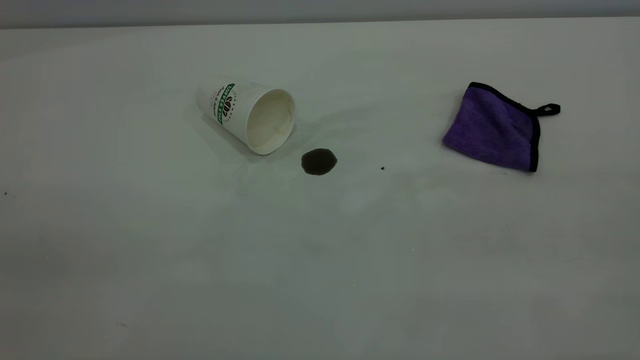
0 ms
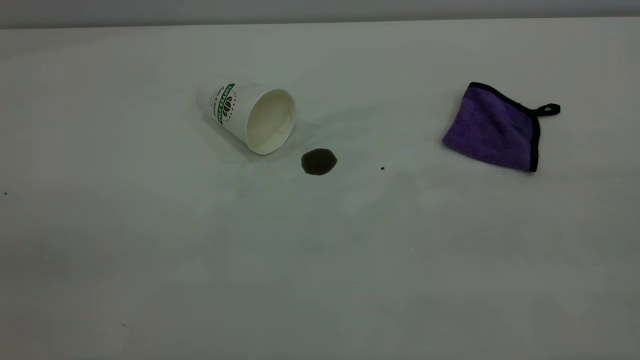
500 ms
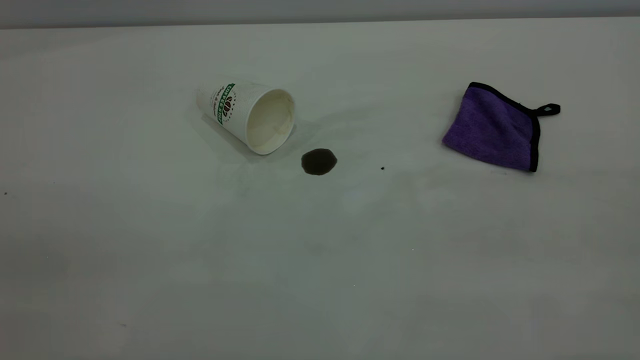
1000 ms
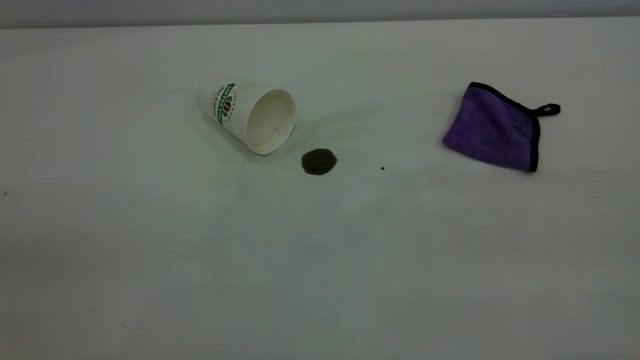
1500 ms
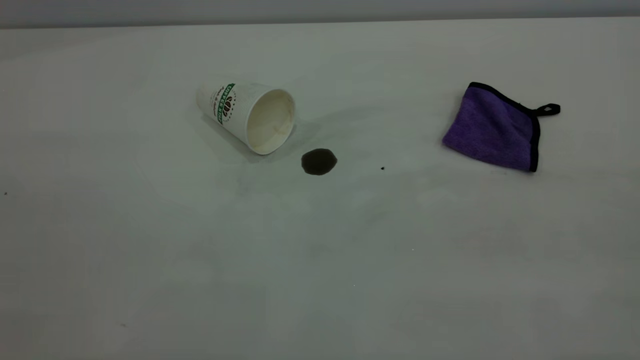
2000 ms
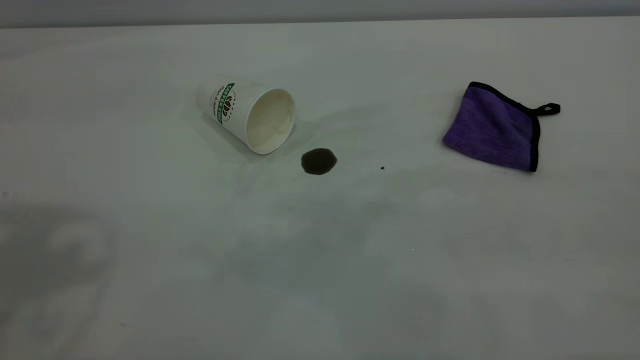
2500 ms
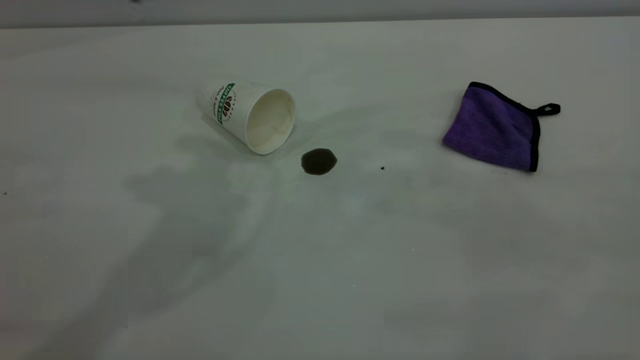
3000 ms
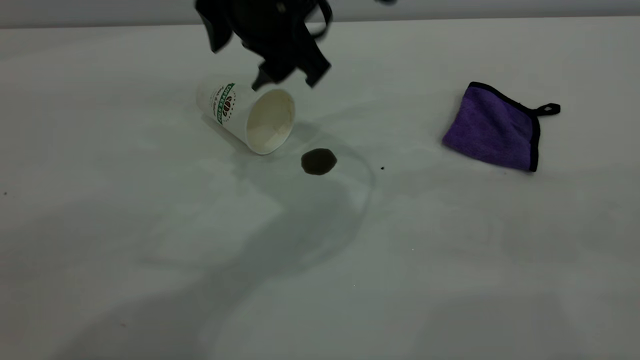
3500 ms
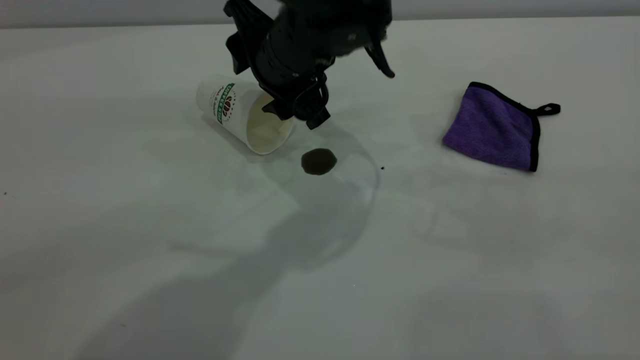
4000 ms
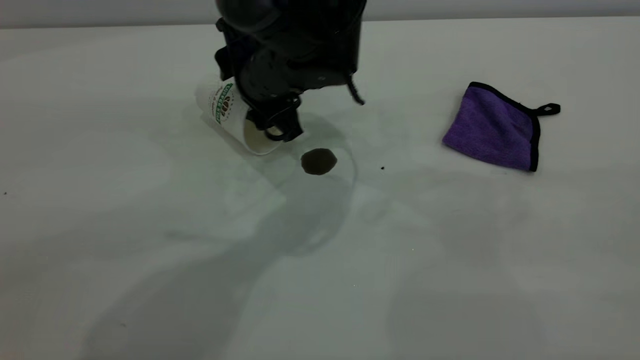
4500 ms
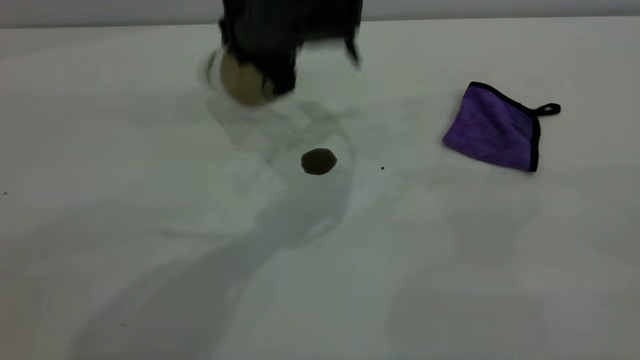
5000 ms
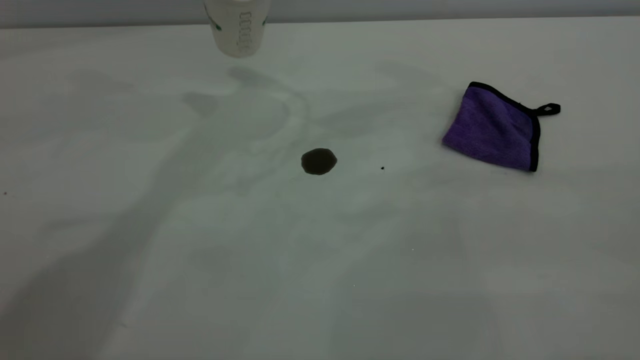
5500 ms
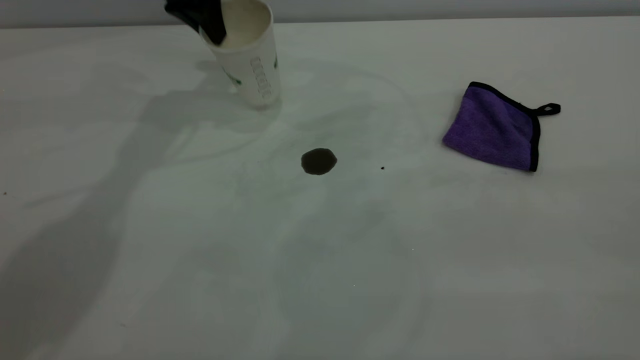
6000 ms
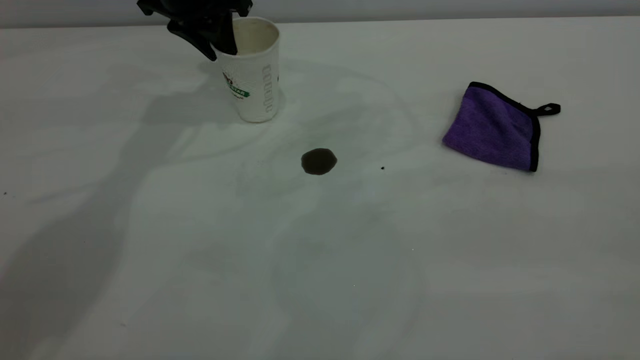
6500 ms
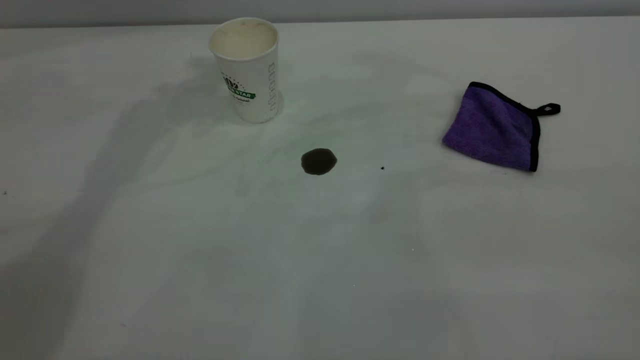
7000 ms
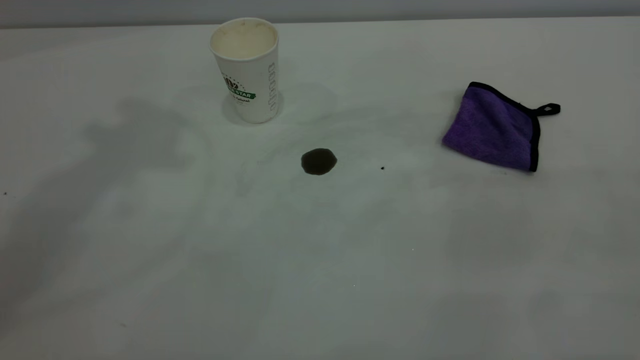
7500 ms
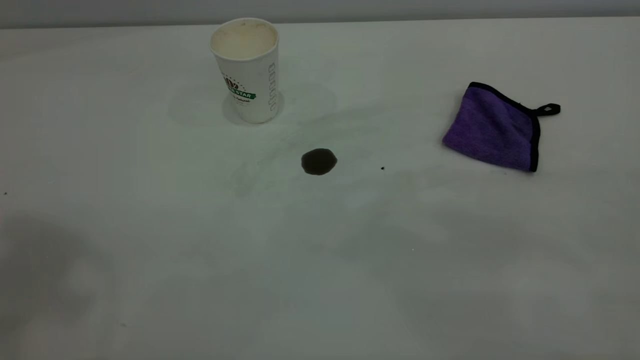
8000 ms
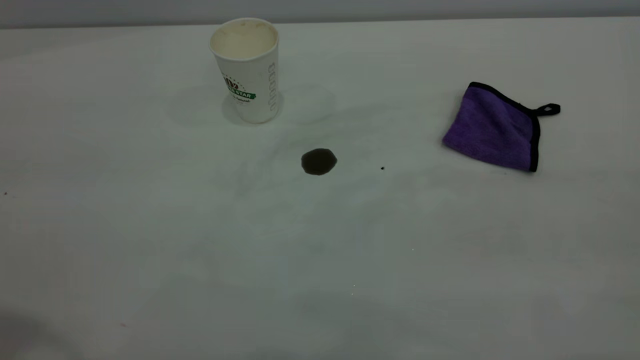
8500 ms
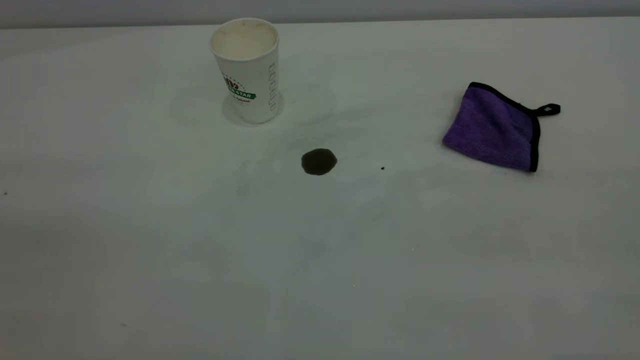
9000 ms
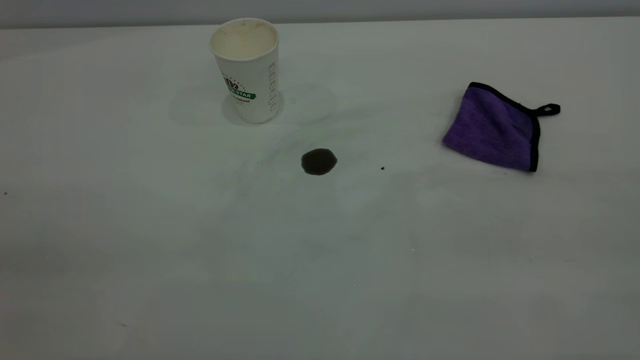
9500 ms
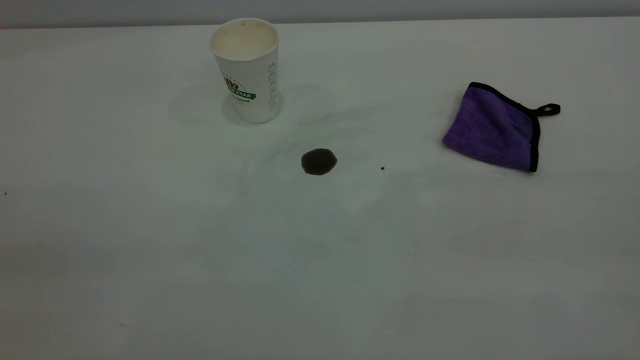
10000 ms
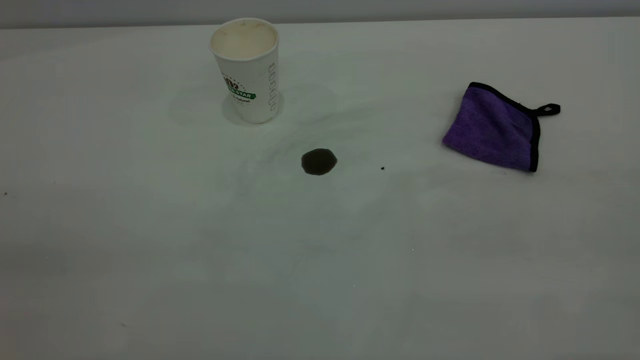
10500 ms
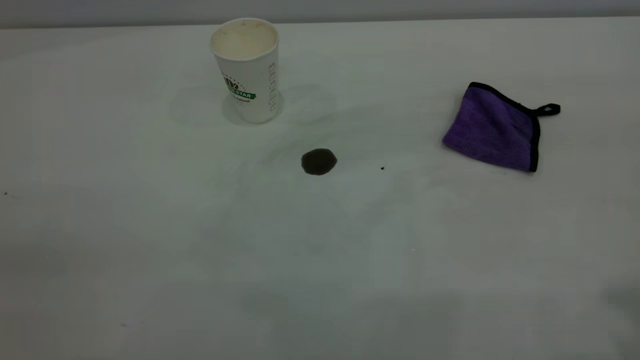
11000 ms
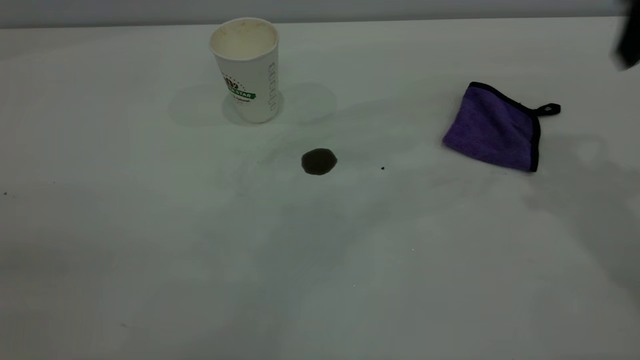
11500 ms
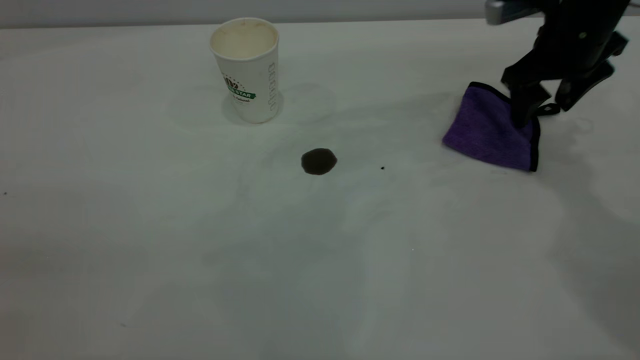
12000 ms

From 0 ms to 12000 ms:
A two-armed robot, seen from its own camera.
Task of the whole recording: the left gripper pick up the fallen cup and place it upright, the right gripper grasp the purple rag and wipe the coffee stain on the table, the right gripper put the purple rag back in its original position.
Step, from 0 ms to 6500 ms: Stand the paper cup upright.
From 2000 ms to 4000 ms: The left gripper heads forward, to the right and downward, covering about 50 cm.
From 4000 ms to 6000 ms: The left gripper shifts about 20 cm to the left and forward, travels upward and back again, some 15 cm each way, and closes.
From 6000 ms to 8000 ms: The left gripper moves upward and backward, about 50 cm, and opens.
From 10000 ms to 12000 ms: The right gripper is displaced forward and downward by roughly 50 cm.

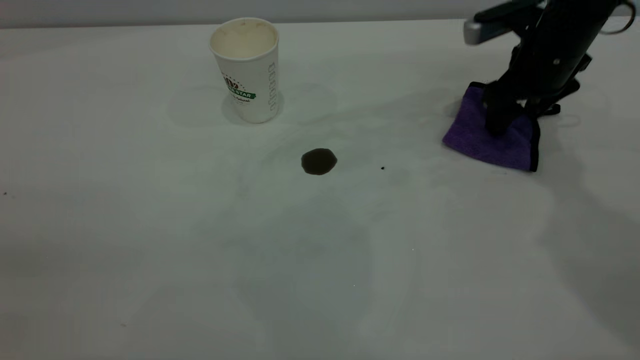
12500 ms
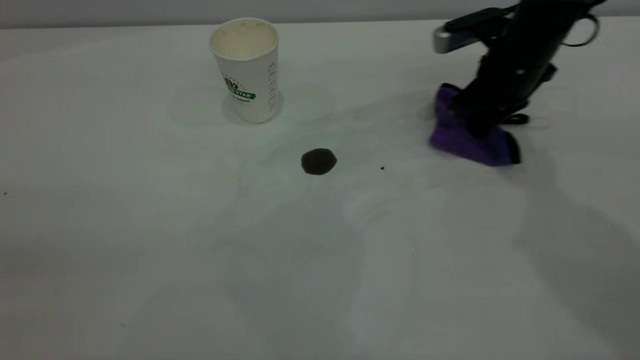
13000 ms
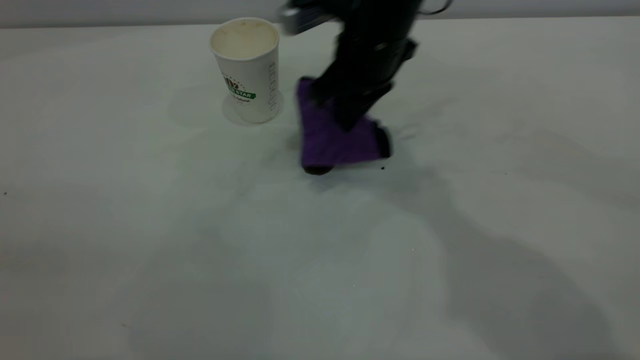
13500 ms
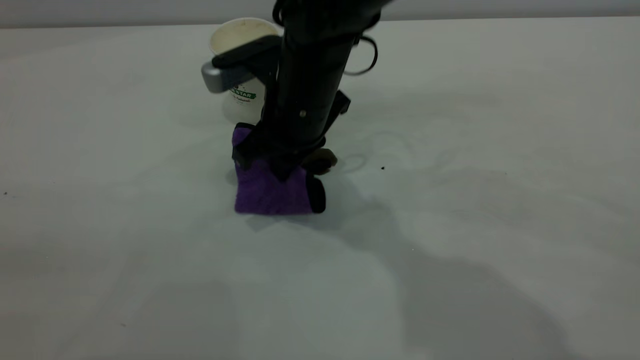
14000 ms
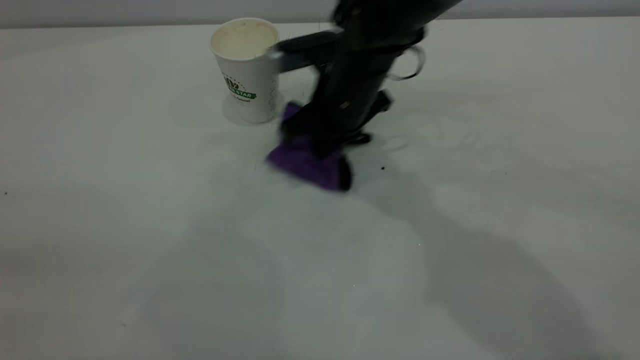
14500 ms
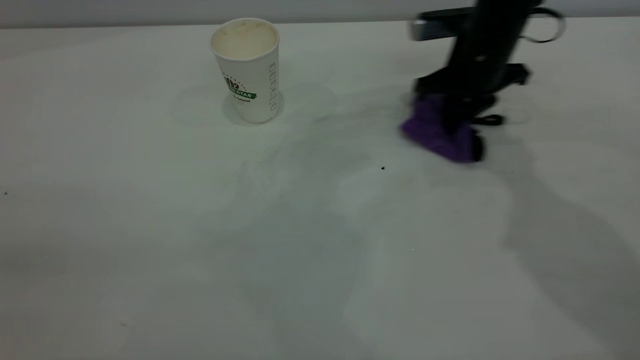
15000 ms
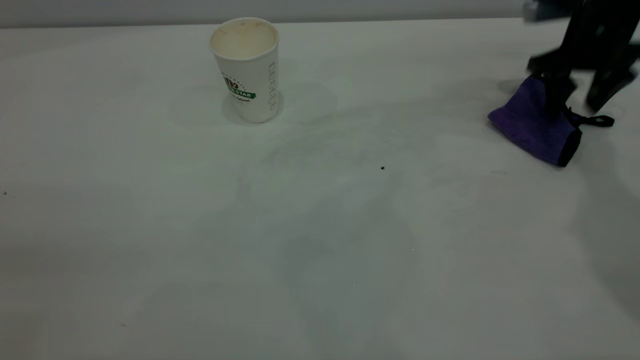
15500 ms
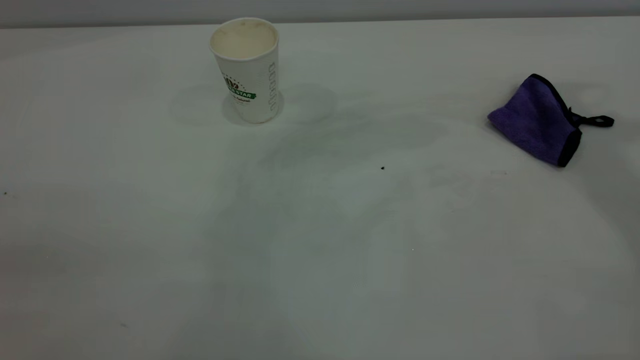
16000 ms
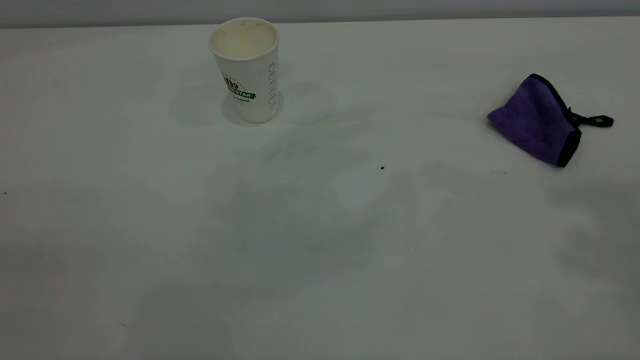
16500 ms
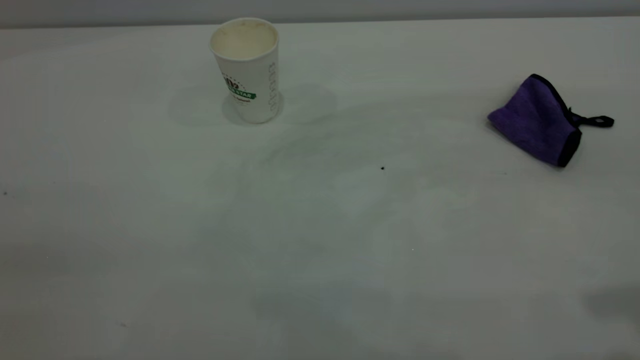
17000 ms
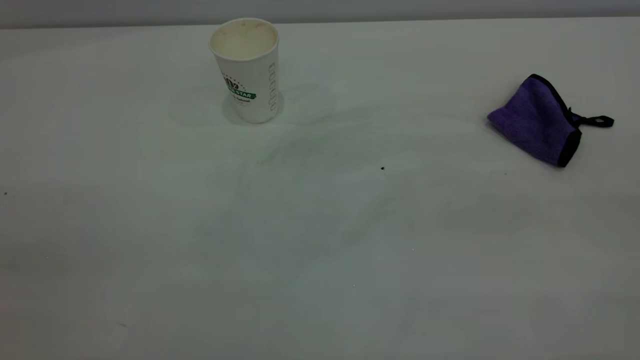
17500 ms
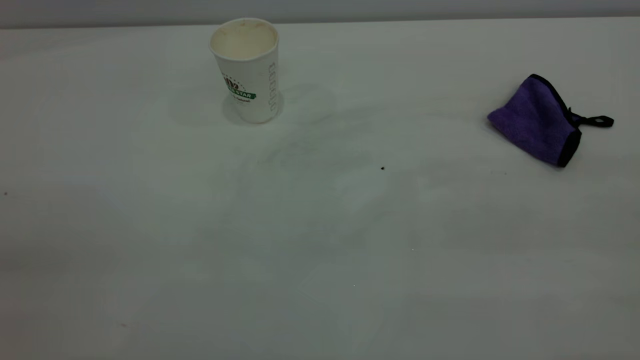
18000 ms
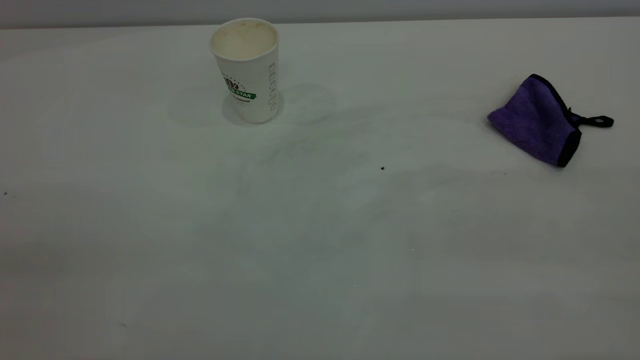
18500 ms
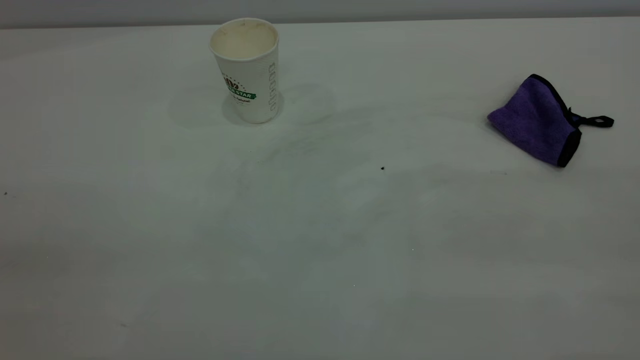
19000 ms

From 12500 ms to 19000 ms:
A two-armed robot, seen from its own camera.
Task of the whole recording: the left gripper pick up the fallen cup and place it upright, the right gripper grasp the purple rag and wipe the coffee stain on the table, the right gripper put the purple rag back in its original position.
Step, from 12500 ms to 15500 ms: Wipe the stains off the table with a rag.
From 12500 ms to 14500 ms: The right gripper travels to the left by about 20 cm, and closes.
From 14500 ms to 17000 ms: The right gripper heads upward, backward and to the right, covering some 50 cm, and opens its fingers.
